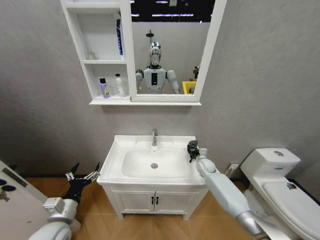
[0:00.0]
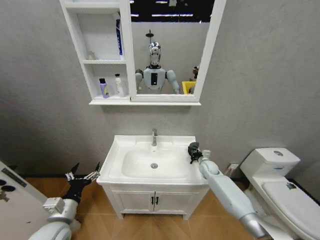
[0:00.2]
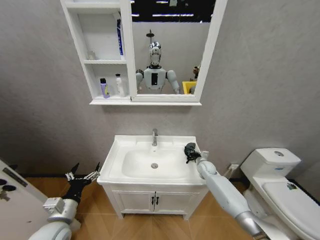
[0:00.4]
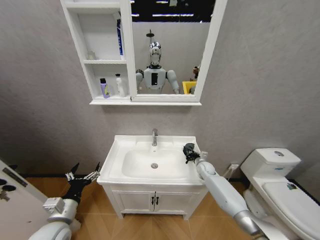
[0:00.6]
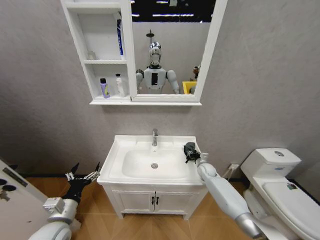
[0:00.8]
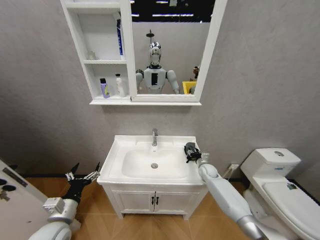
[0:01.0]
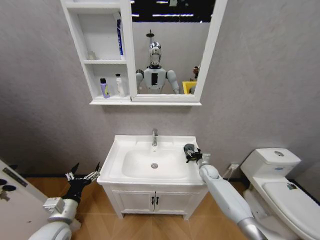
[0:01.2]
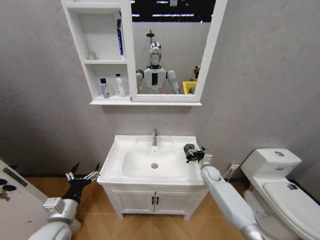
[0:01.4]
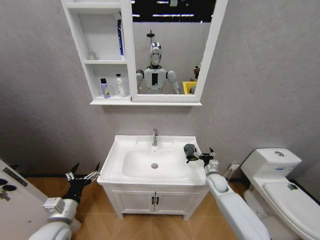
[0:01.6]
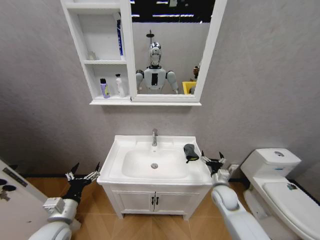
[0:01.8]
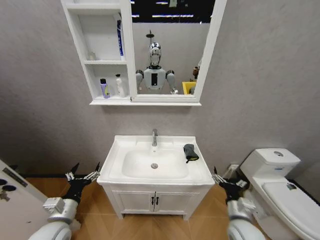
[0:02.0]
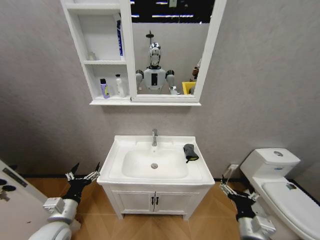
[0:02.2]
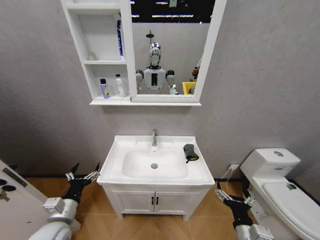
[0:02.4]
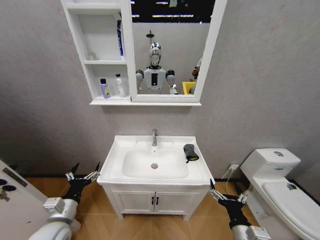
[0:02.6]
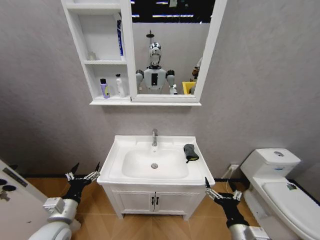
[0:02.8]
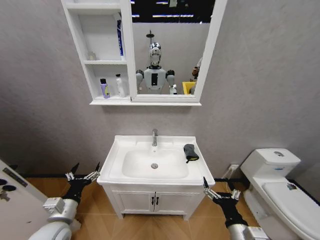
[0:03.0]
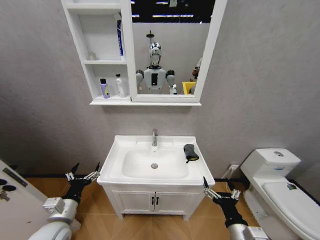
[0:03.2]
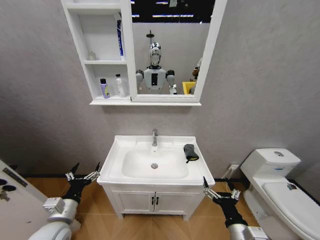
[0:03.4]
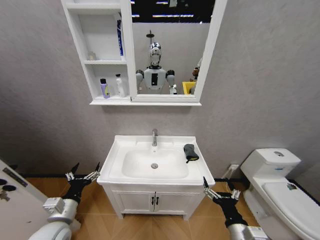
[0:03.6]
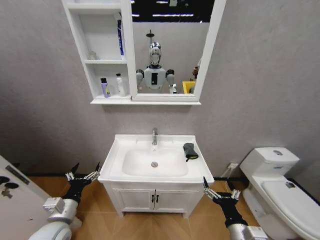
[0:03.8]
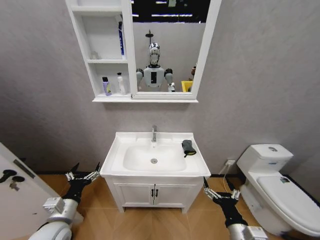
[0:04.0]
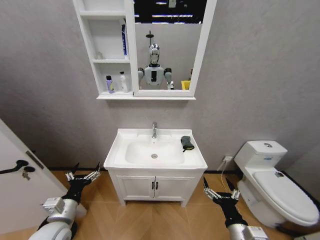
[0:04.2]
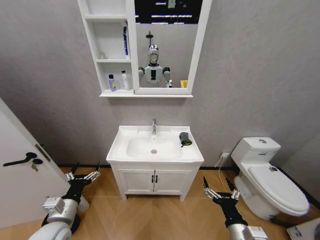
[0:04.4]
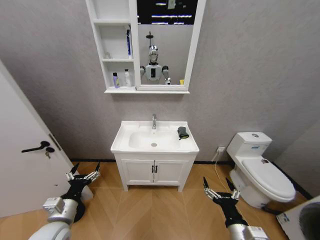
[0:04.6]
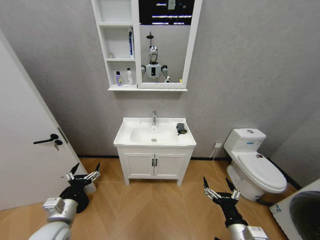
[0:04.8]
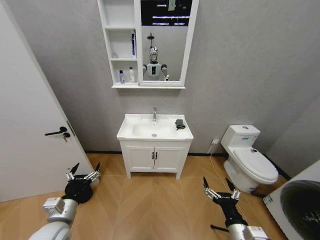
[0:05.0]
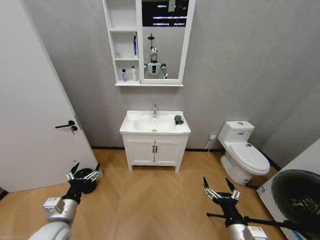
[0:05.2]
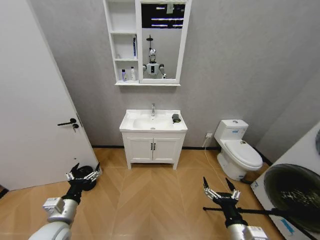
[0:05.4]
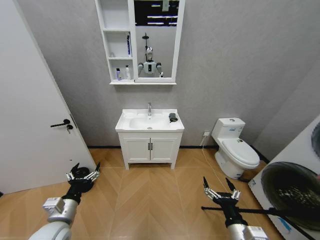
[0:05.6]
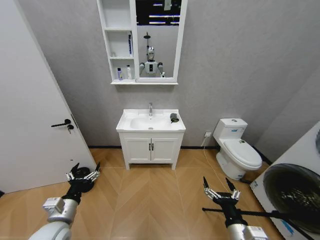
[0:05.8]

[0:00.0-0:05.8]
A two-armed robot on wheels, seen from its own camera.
Task of the whole recording: Move facial cleanser and shampoo from washbasin to cabinet, then wipe washbasin with towel.
0:00.0 to 0:01.4: The right gripper opens its fingers.
0:01.4 to 0:02.8: The right gripper is displaced backward by roughly 35 cm.
